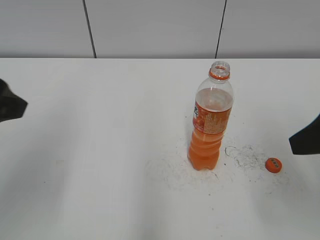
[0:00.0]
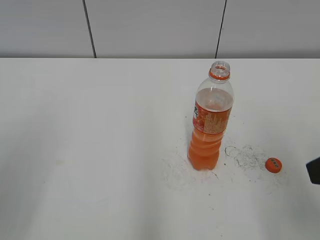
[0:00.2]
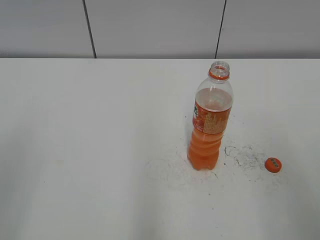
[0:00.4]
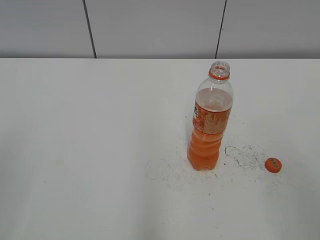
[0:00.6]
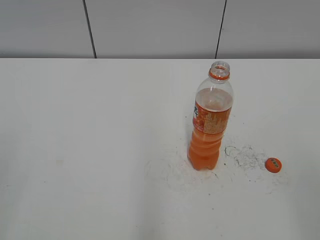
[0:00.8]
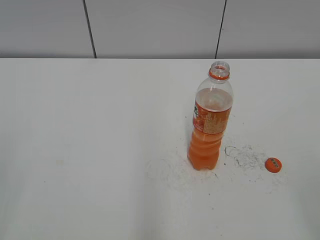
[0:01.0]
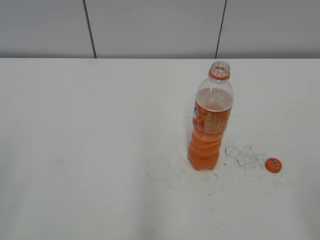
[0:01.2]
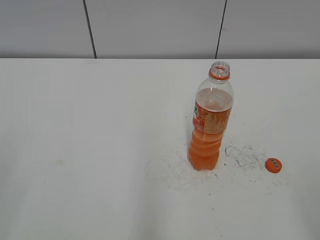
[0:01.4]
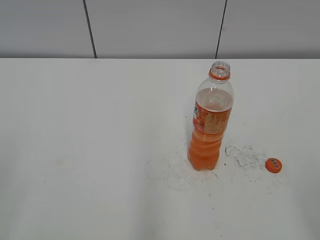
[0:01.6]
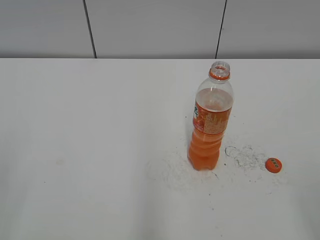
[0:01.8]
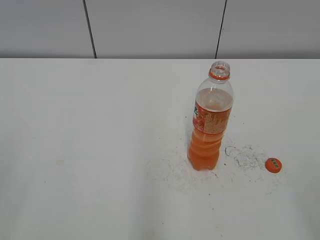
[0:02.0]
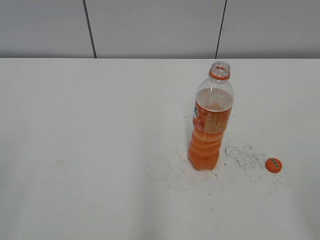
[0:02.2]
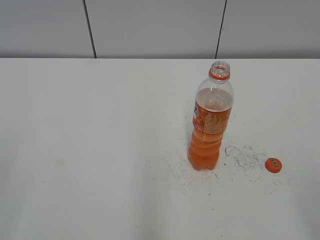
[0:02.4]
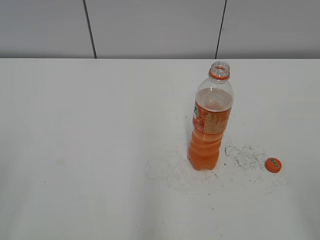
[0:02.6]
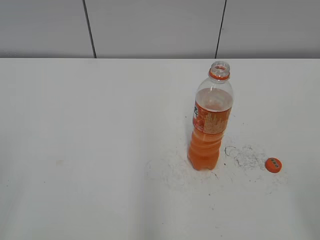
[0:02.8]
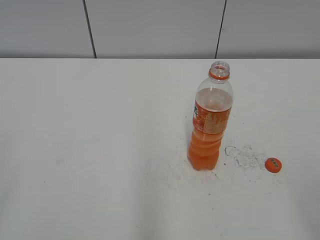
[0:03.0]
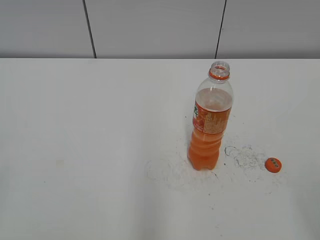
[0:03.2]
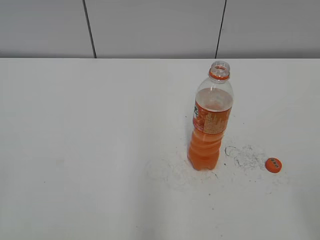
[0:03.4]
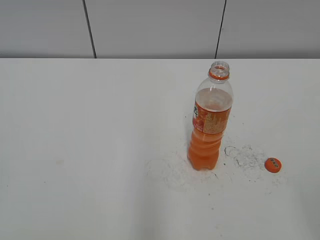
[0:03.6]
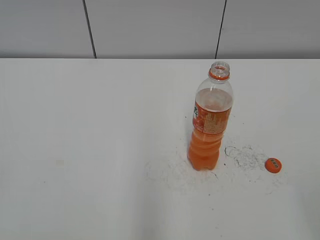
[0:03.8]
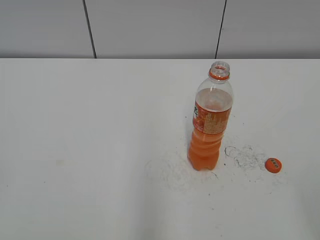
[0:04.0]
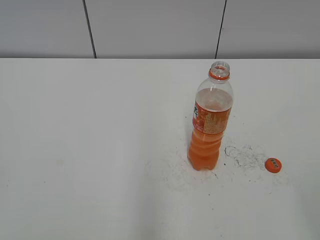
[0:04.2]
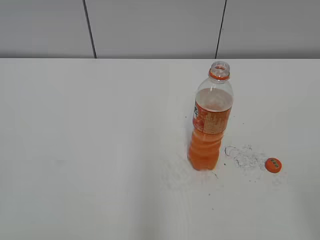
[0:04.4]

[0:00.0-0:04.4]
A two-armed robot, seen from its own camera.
0:00.0 to 0:01.4: The right gripper is displaced backward by approximately 15 cm, while the left gripper travels backward and to the left by approximately 15 cm.
